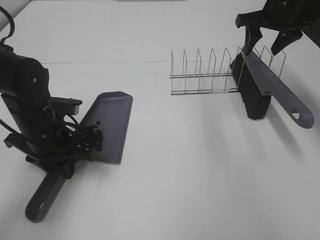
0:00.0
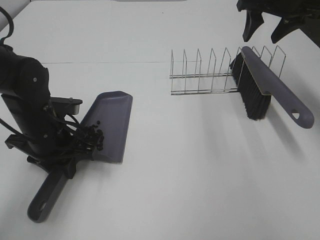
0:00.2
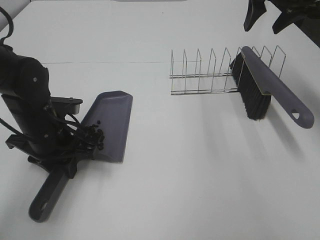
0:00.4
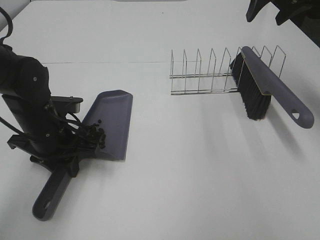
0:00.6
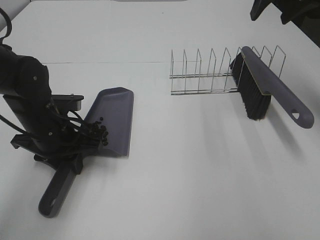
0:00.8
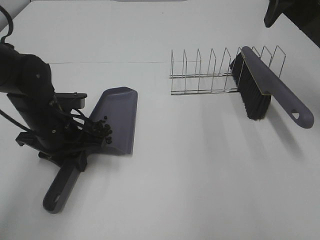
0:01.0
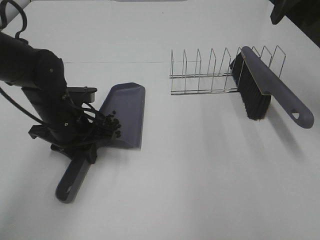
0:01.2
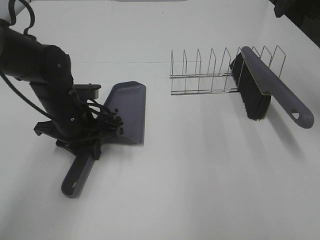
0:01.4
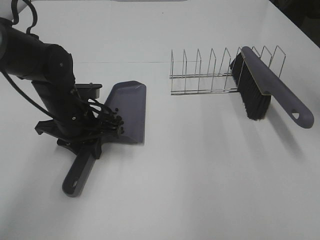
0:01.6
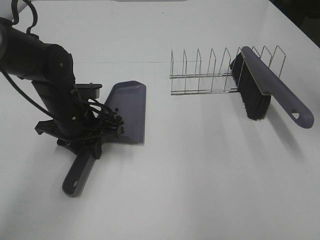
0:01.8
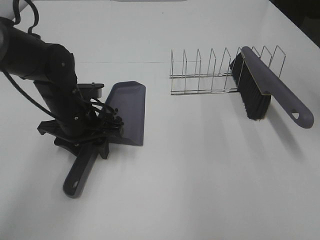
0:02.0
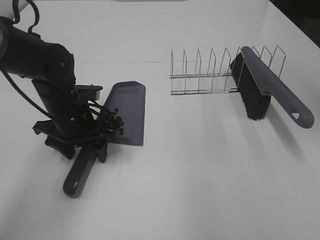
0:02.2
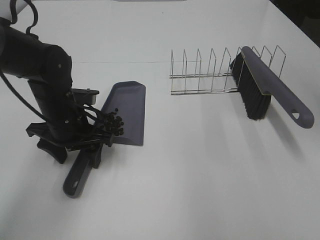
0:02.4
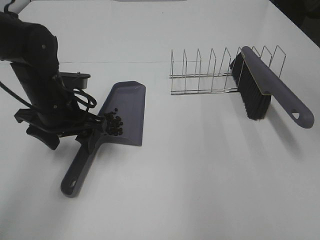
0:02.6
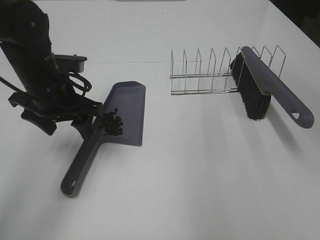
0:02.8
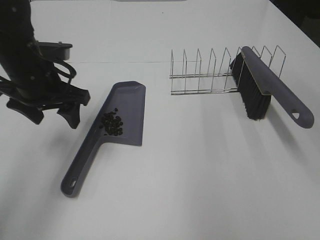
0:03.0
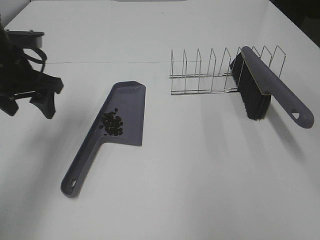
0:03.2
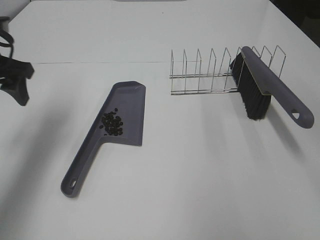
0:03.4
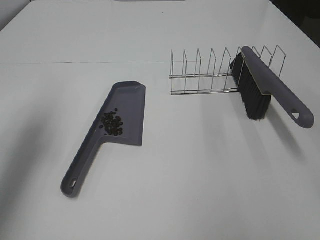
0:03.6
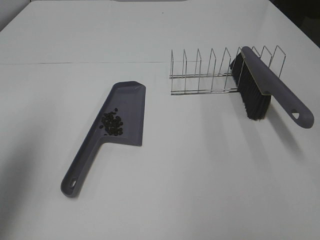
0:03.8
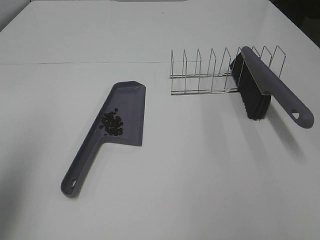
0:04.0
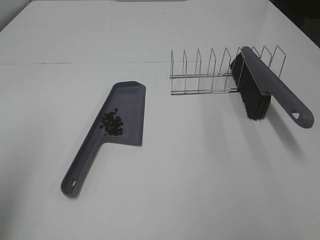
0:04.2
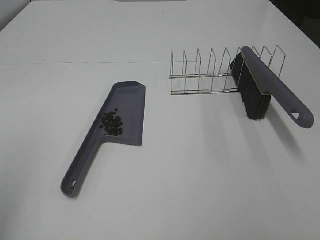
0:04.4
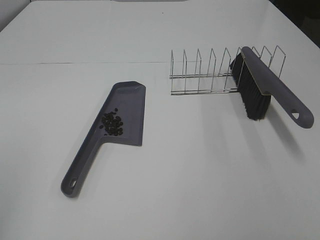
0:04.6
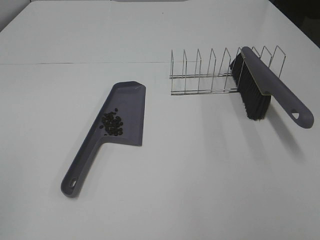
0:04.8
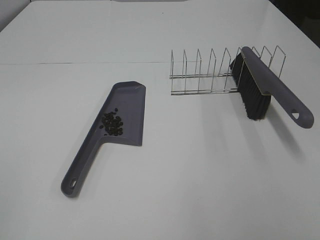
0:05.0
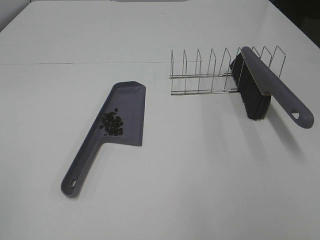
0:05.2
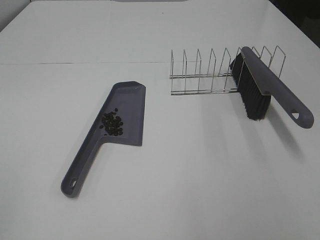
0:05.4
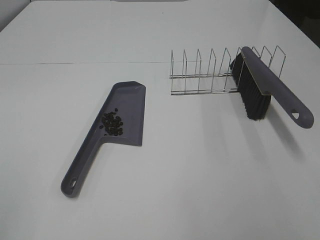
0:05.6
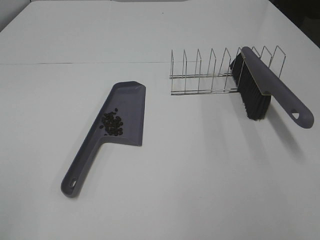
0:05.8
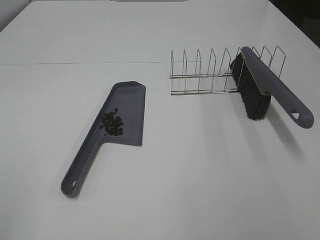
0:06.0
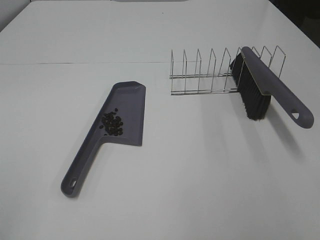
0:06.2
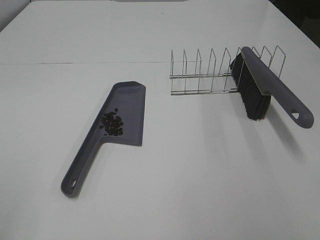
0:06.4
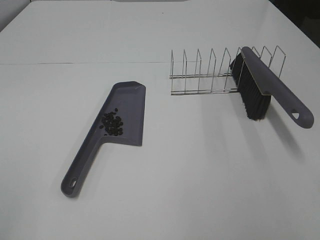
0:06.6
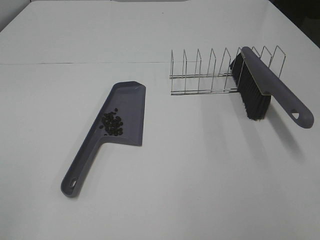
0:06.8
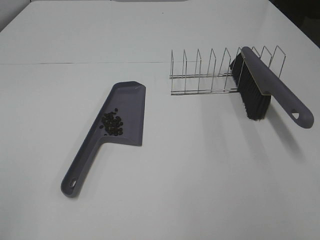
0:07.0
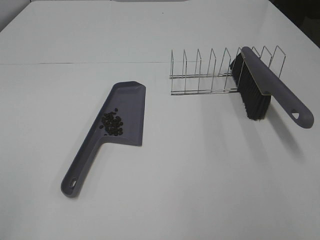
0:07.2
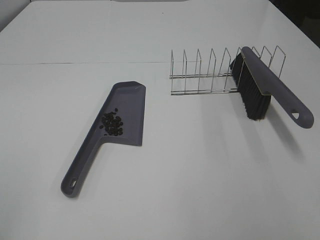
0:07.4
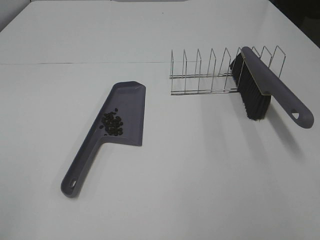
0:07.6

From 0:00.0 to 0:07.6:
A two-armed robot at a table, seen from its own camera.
Task of the whole recording: Sweep Coffee Bean.
Step, from 0:00.0 to 0:02.2: Left hand:place the dustpan on the table.
From 0:00.0 to 0:01.6: The right gripper moves upward and backward, approximately 15 cm, while the left gripper ends up about 5 cm from where it was.
From 0:01.6 to 0:03.0: The left gripper heads upward, covering roughly 10 cm, and opens up; the right gripper heads backward, covering roughly 15 cm.
From 0:03.0 to 0:04.6: The left gripper moves backward, upward and to the left, about 40 cm.
From 0:06.0 to 0:07.6: Both grippers stay put.

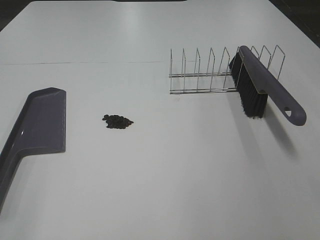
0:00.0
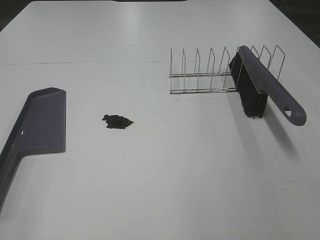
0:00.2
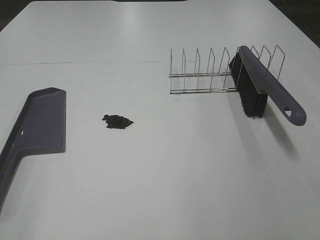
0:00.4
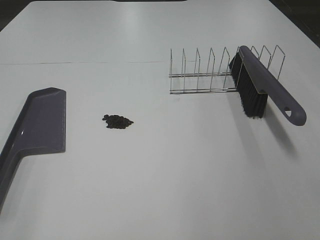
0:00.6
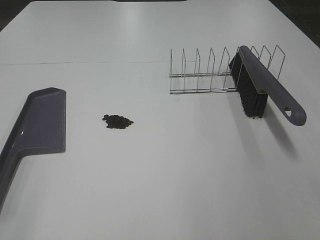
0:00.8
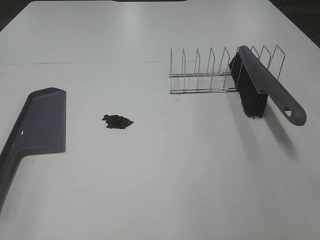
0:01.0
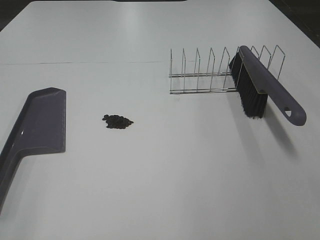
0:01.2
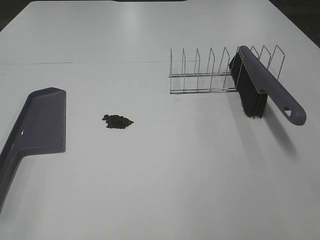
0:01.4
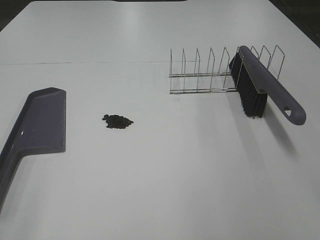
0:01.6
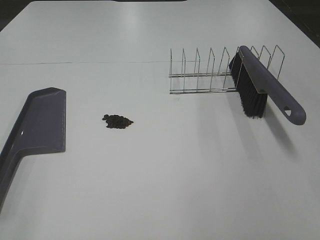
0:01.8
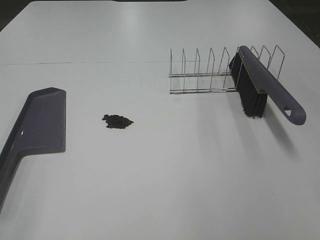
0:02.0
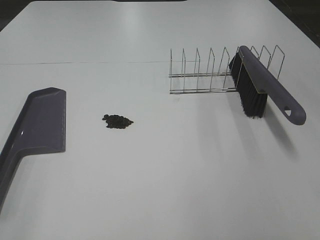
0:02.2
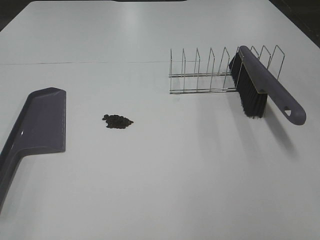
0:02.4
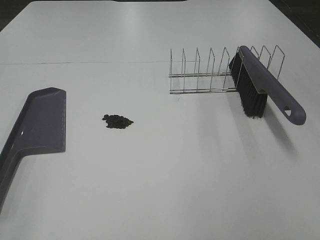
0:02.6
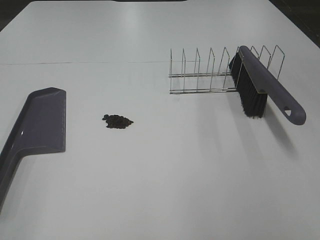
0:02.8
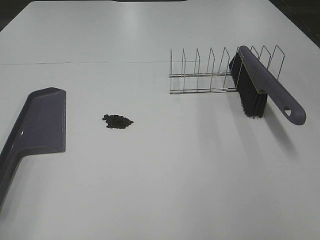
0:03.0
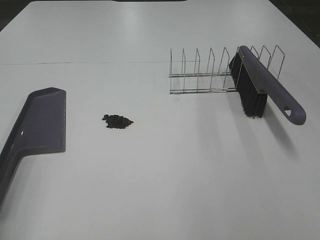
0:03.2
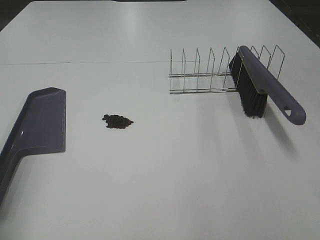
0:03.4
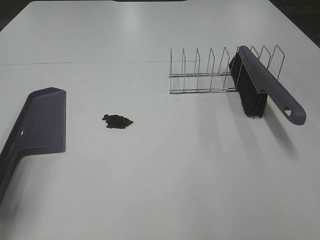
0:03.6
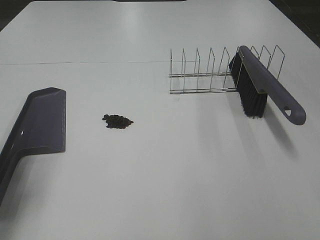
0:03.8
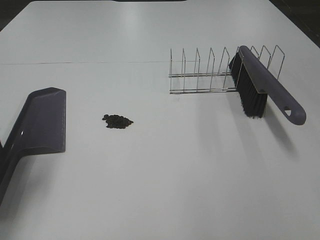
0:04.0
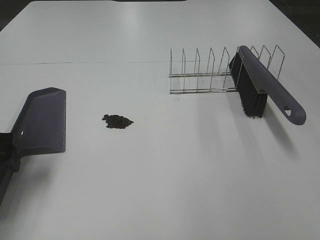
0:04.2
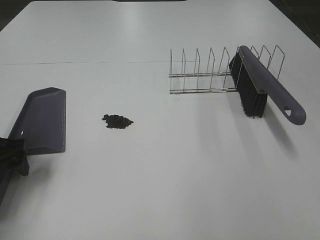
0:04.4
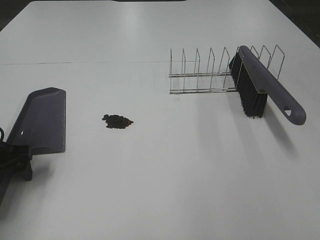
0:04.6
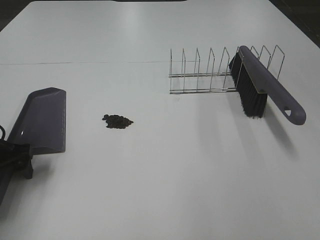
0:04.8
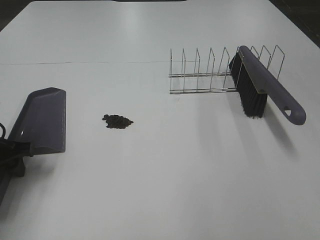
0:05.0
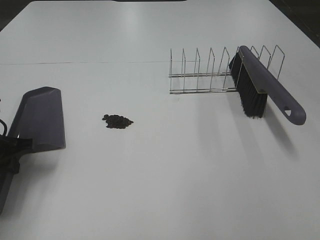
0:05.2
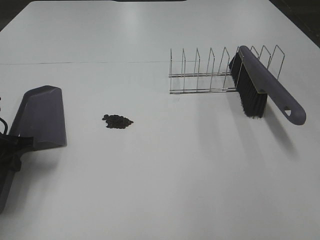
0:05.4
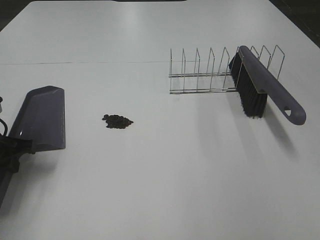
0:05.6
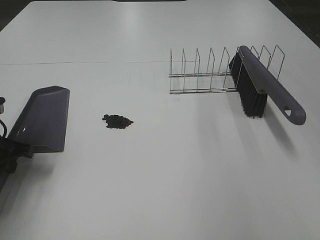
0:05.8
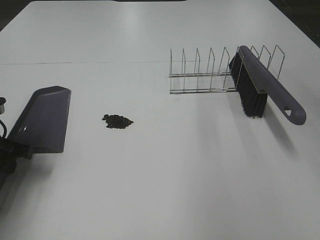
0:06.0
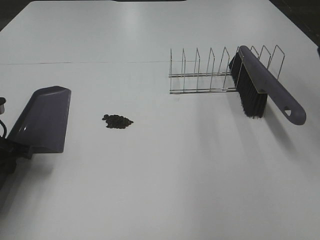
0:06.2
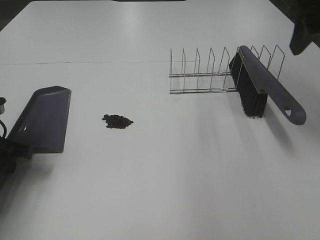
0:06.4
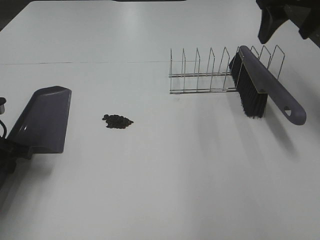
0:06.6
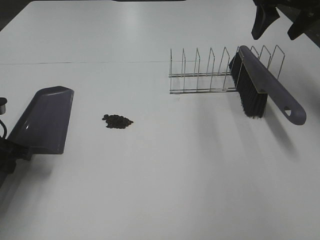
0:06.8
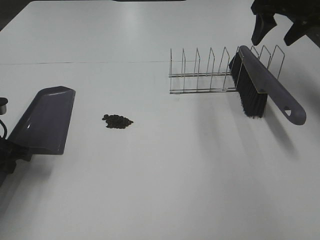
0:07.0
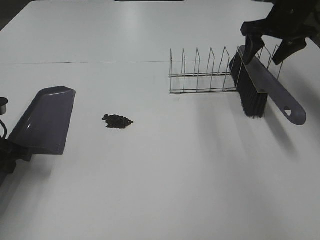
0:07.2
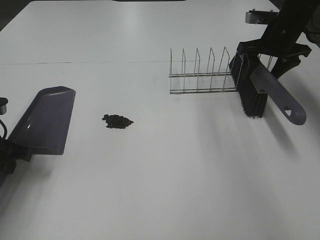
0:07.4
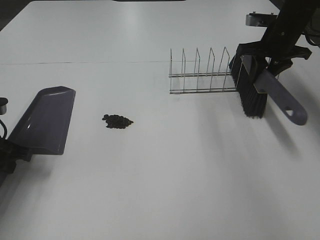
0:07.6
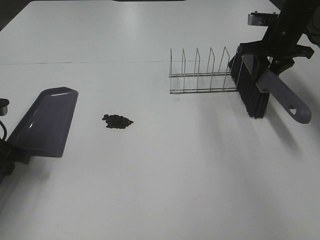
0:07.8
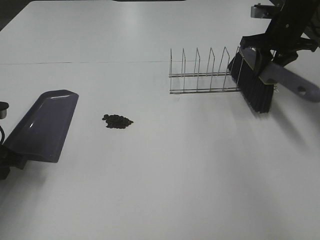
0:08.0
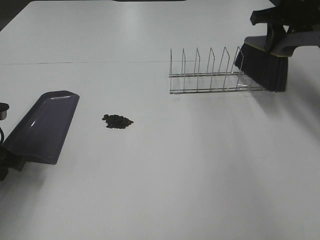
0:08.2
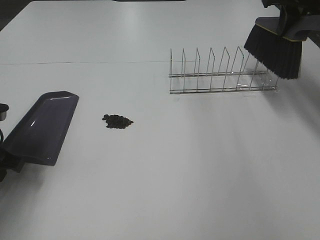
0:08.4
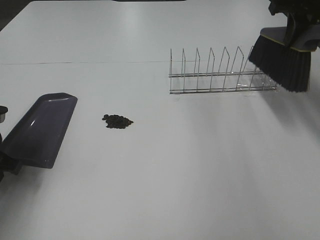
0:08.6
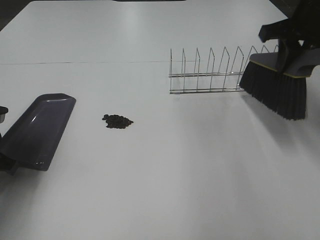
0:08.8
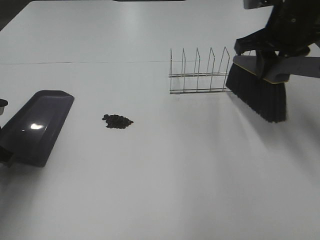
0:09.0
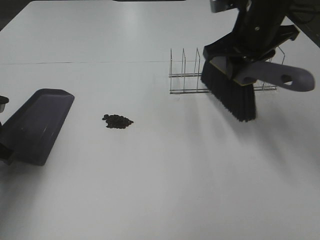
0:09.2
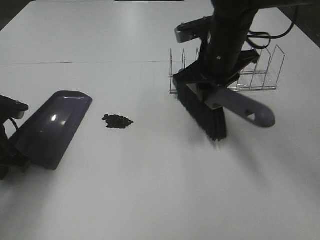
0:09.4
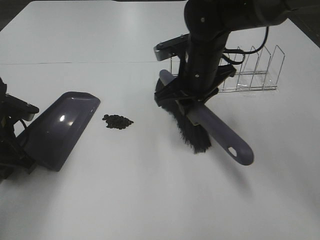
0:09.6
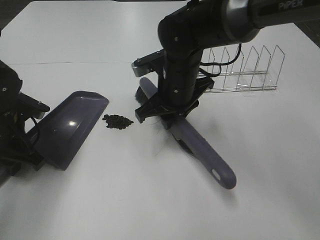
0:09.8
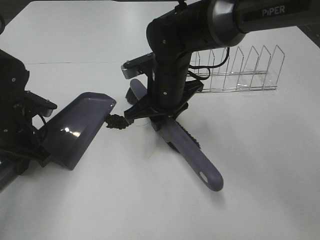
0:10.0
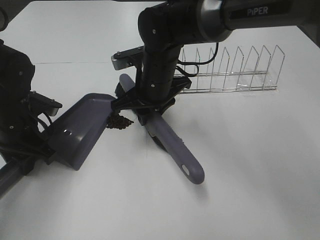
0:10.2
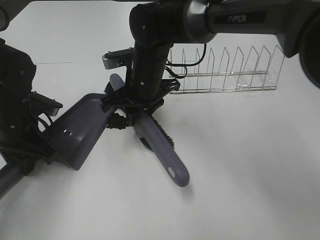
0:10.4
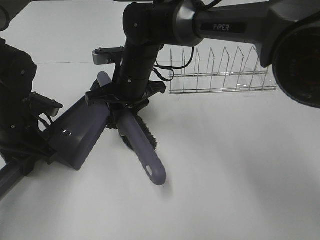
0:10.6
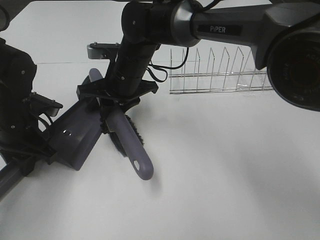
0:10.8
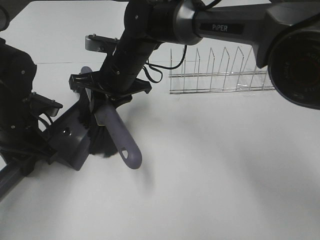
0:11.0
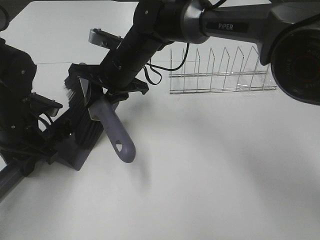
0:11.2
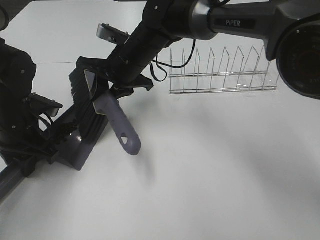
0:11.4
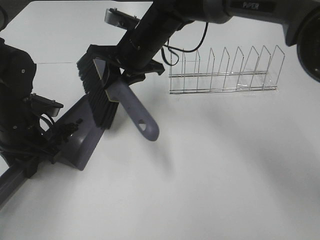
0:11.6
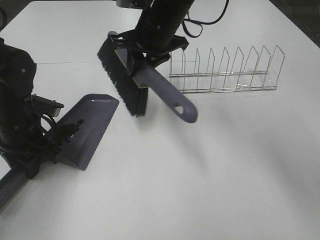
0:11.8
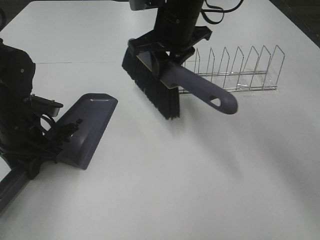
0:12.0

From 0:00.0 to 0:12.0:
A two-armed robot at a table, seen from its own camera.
Task of the whole recording: Sweep Coffee Bean.
Step, from 0:00.0 to 0:05.4: Left hand: grab the dustpan.
Step, from 0:05.0 to 0:07.8: Right hand:grab the broom.
Step, from 0:08.0 to 0:11.4: Right hand:sweep the coffee beans into the dustpan.
From 0:00.0 to 0:01.6: Both grippers stay about where they are.
From 0:03.0 to 0:04.4: The left gripper is displaced forward and downward by approximately 25 cm.
From 0:04.4 to 0:06.0: The left gripper closes.
From 0:06.0 to 0:07.6: The right gripper travels forward and downward by approximately 30 cm, and closes up.
From 0:07.6 to 0:09.0: The right gripper is displaced backward, upward and to the left by some 15 cm.
From 0:09.0 to 0:10.4: The right gripper is displaced to the left and downward by roughly 25 cm. The left gripper is displaced to the right by roughly 5 cm.
From 0:10.4 to 0:12.0: The right gripper heads upward and to the right, covering approximately 10 cm.

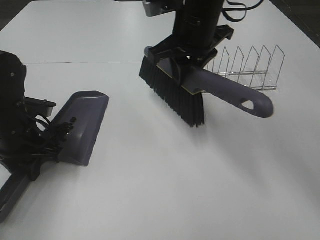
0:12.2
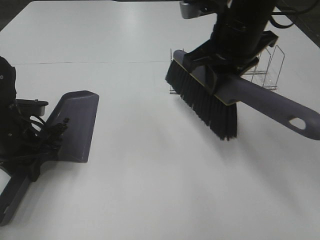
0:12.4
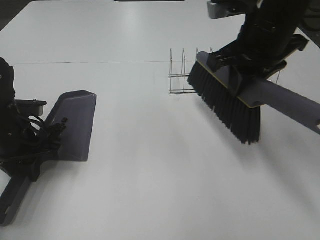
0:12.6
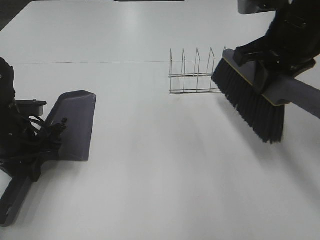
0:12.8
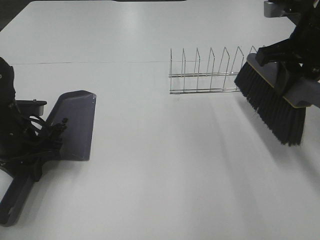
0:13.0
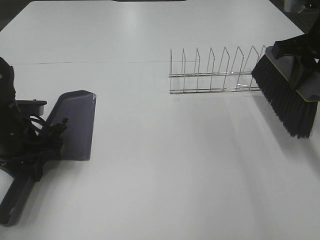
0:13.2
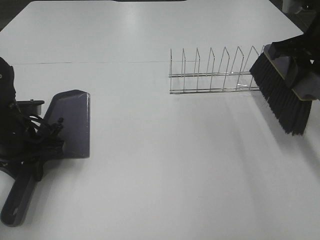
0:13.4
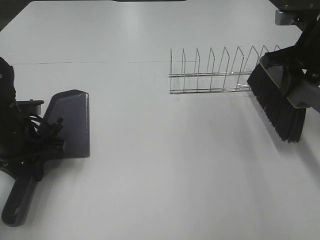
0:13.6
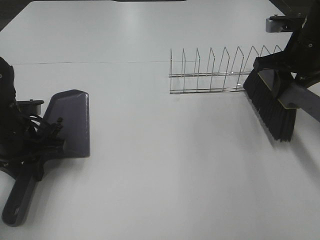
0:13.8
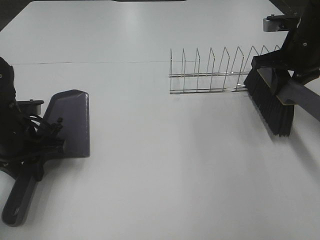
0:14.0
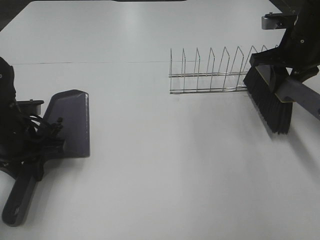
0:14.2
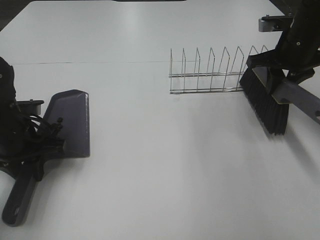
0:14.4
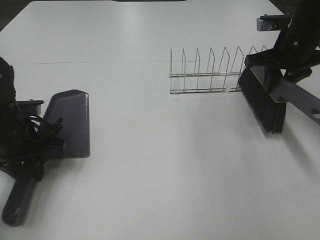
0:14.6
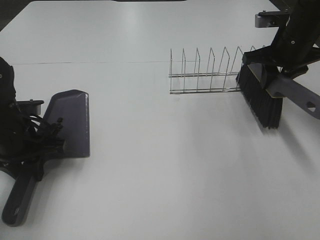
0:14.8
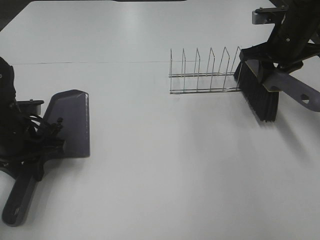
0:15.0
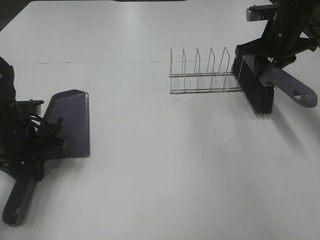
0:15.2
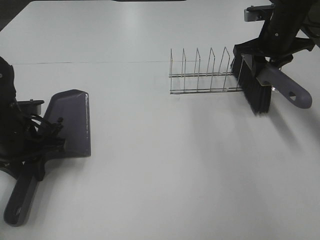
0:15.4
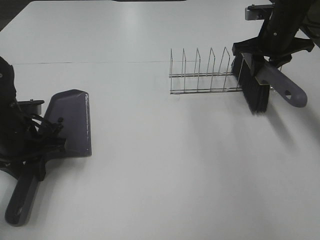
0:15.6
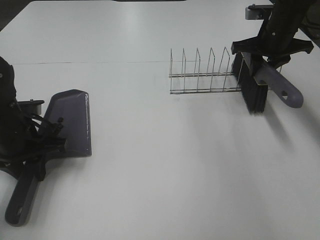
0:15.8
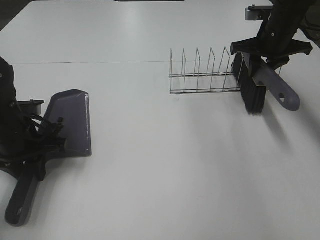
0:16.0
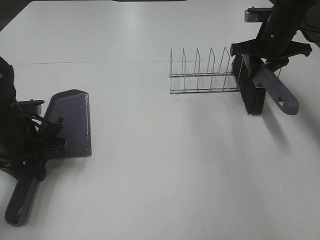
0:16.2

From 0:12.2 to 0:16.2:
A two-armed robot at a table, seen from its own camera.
Task of the whole recording: Sweep Coffee Bean.
From 0:12.2 to 0:13.6: The right gripper shifts approximately 20 cm to the right.
From 0:13.6 to 0:14.8: The right gripper heads forward, covering about 5 cm.
From 0:14.8 to 0:16.2: The right gripper travels forward by about 5 cm.
